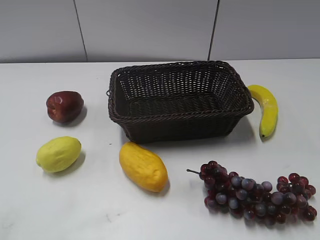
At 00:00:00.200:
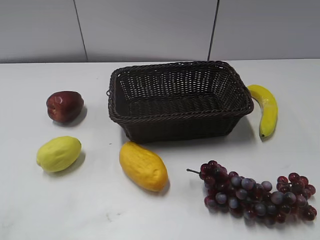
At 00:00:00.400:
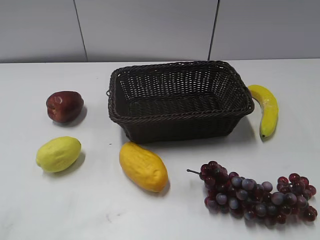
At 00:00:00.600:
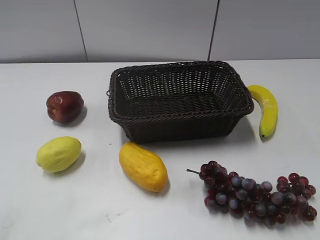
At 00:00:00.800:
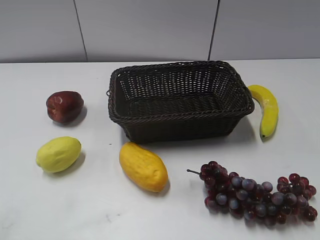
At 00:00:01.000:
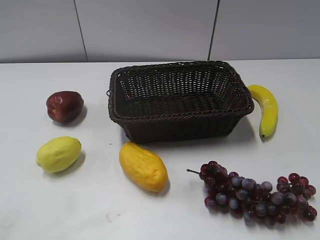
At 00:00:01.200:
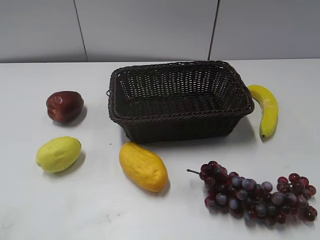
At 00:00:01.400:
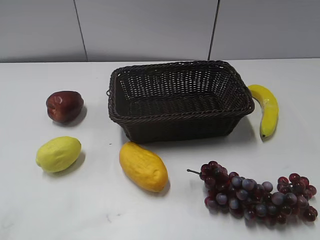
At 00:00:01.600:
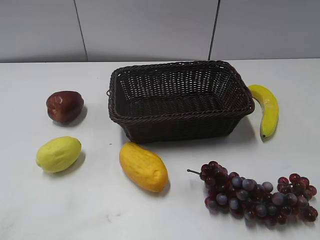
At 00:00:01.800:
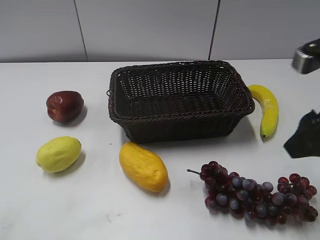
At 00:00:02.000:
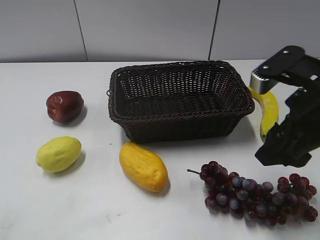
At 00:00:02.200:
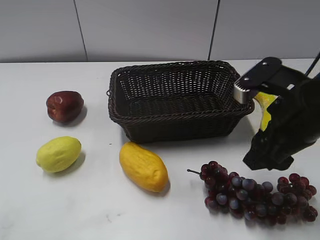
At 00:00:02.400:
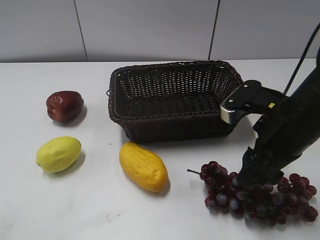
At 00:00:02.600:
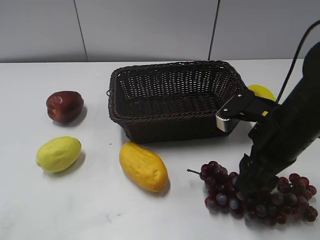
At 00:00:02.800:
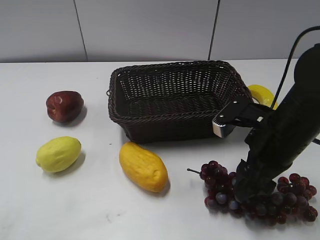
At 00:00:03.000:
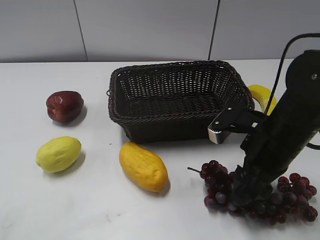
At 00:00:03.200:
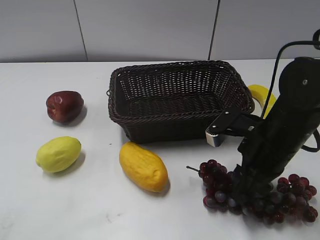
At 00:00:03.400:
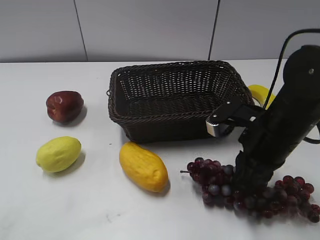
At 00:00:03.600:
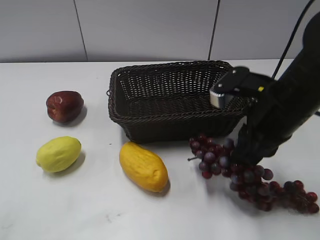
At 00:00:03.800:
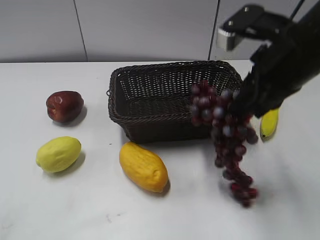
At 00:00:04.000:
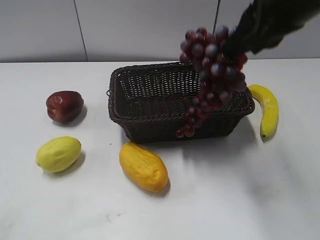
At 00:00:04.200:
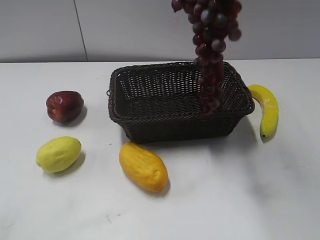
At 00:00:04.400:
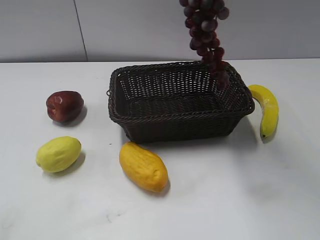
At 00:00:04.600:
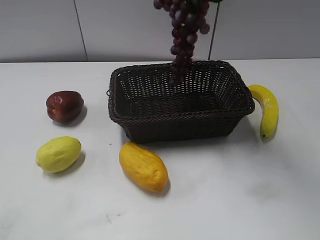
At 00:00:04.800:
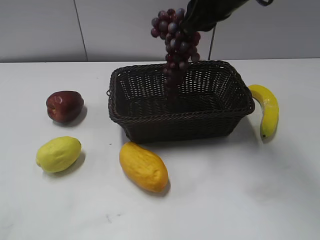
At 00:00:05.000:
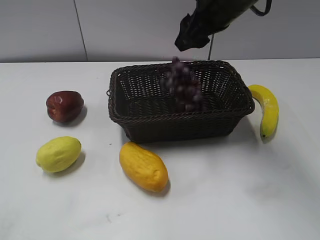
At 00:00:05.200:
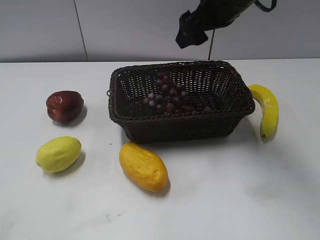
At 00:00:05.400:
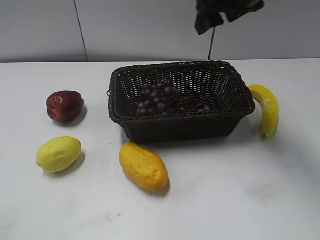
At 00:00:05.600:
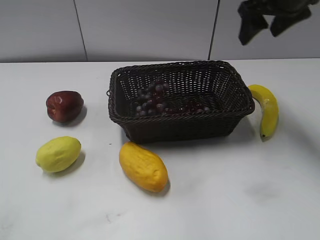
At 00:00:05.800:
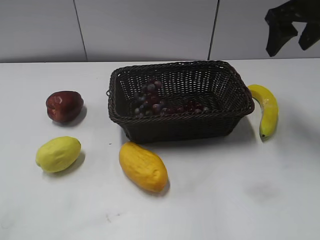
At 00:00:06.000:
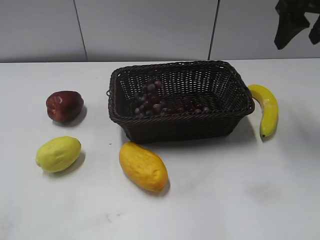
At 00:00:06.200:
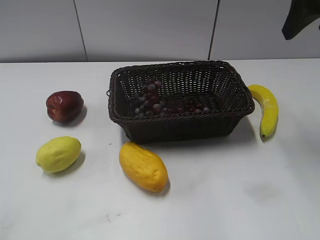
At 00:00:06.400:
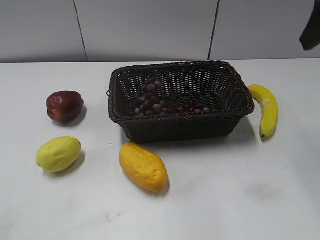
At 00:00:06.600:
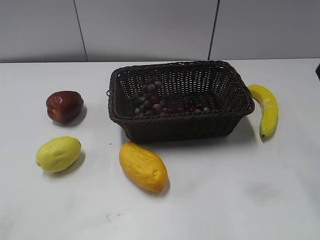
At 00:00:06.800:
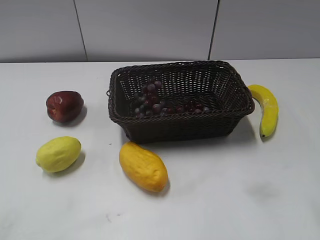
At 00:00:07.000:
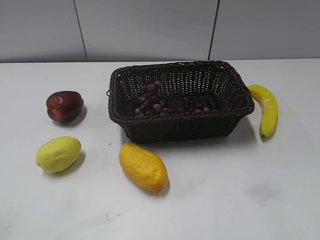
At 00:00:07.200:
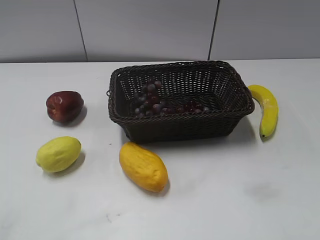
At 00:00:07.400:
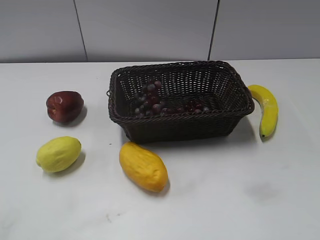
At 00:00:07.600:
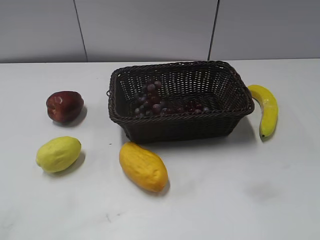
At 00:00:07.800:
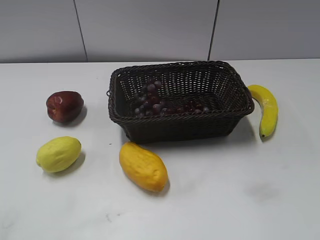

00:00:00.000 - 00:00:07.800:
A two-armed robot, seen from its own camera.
Step, 00:00:01.600 - 00:00:03.400: Grasp the grape with right gripper.
Step, 00:00:03.600 - 00:00:05.000: Place the grape in the basket with right gripper.
00:00:01.600 - 00:00:03.200: The right gripper shifts approximately 20 cm downward, to the left and forward.
00:00:03.200 - 00:00:04.600: The right gripper heads upward and forward, covering about 25 cm, and closes up.
00:00:04.600 - 00:00:06.200: The right gripper travels to the right by some 15 cm, and opens.
00:00:06.200 - 00:00:07.800: The right gripper heads backward, covering approximately 35 cm.
